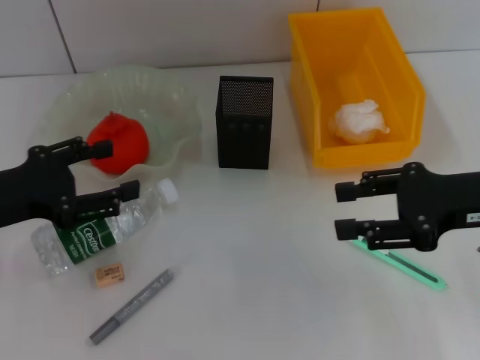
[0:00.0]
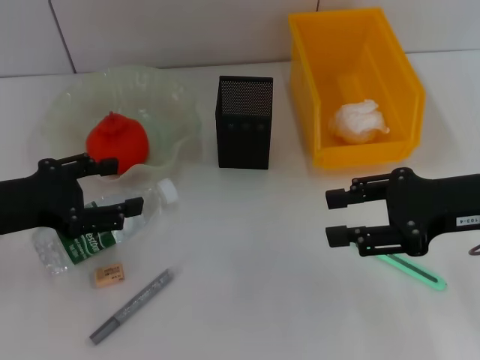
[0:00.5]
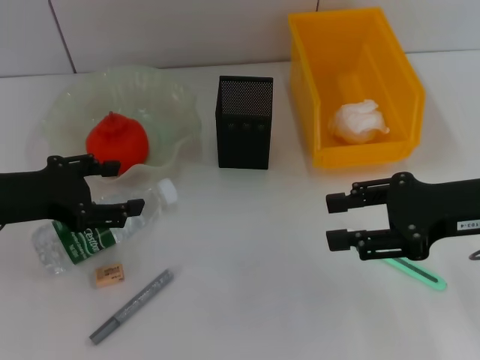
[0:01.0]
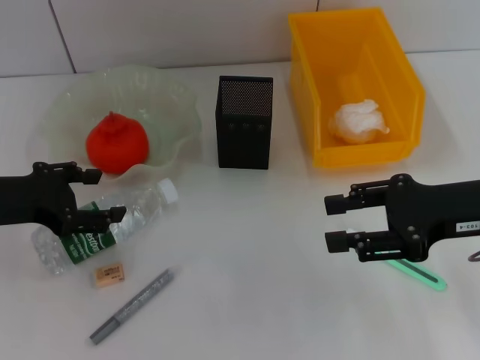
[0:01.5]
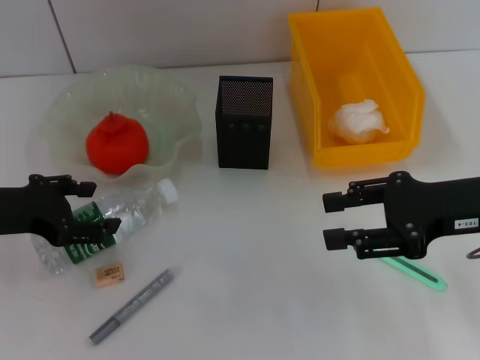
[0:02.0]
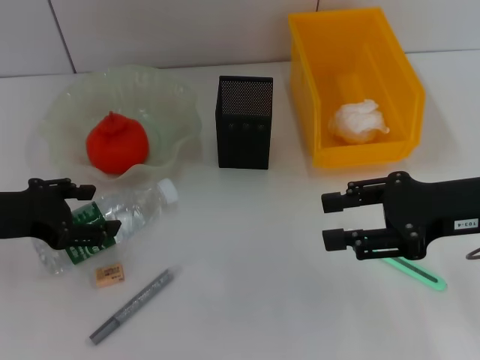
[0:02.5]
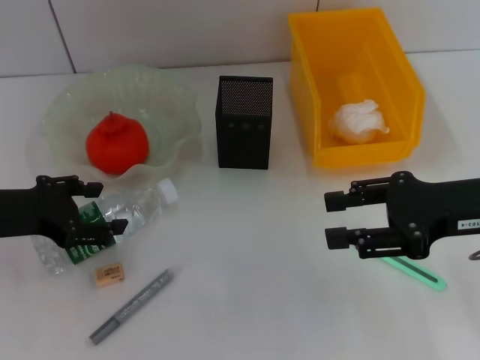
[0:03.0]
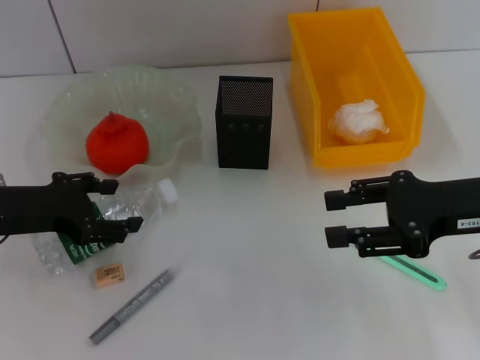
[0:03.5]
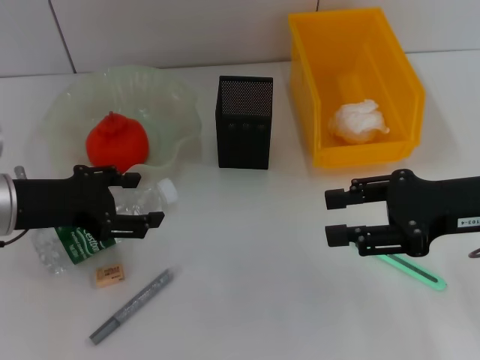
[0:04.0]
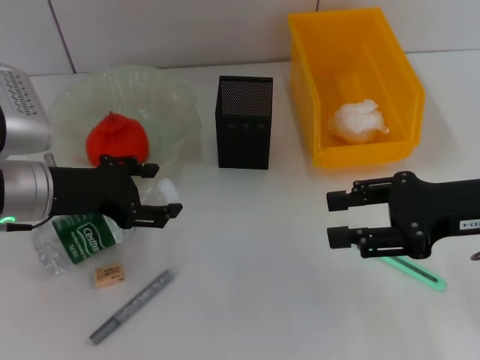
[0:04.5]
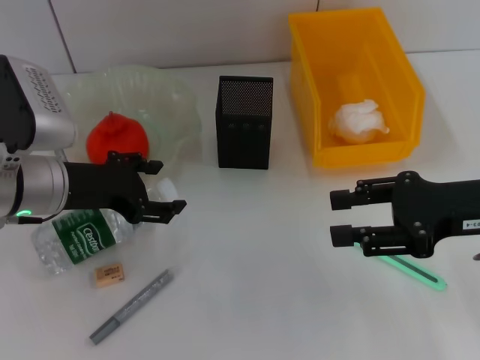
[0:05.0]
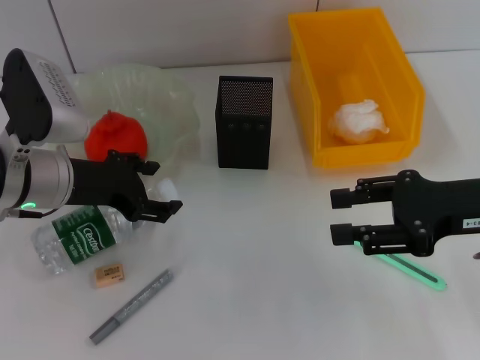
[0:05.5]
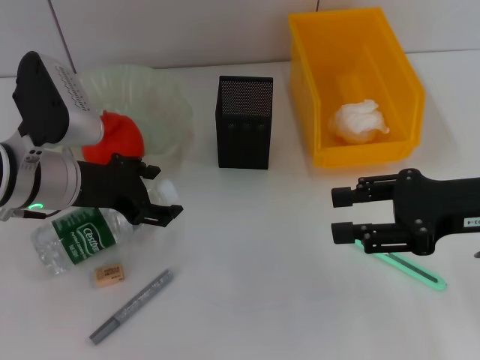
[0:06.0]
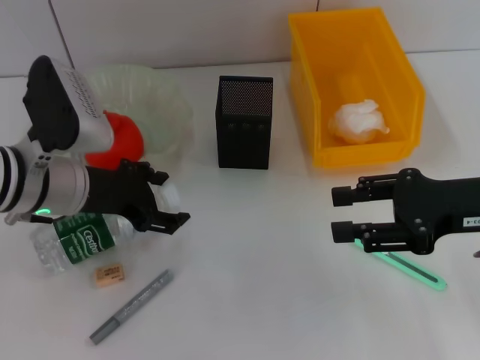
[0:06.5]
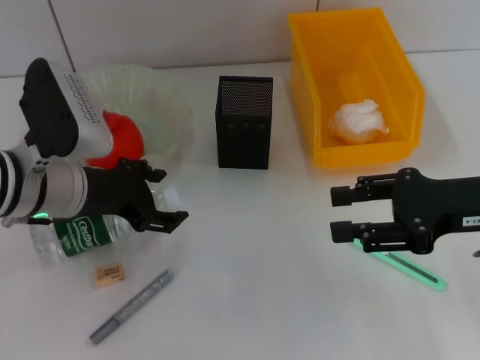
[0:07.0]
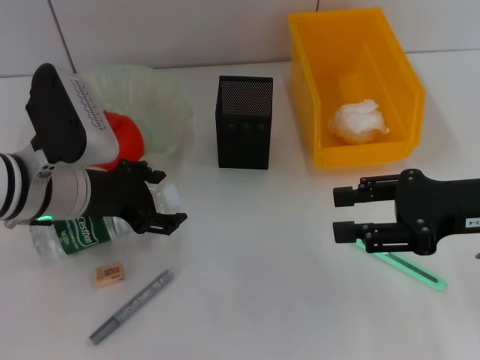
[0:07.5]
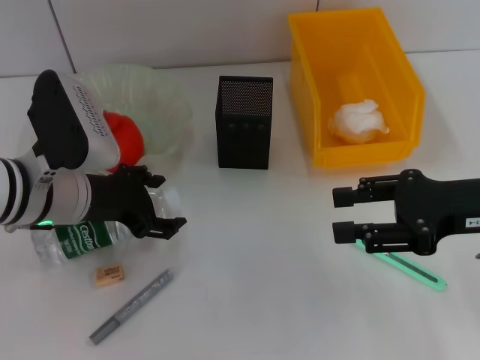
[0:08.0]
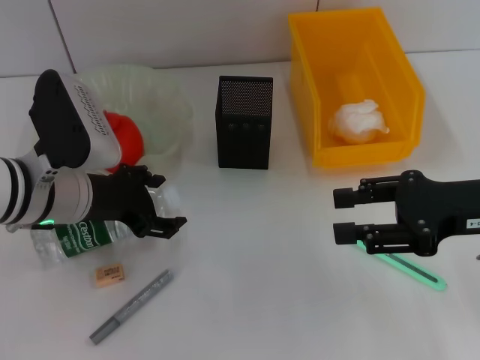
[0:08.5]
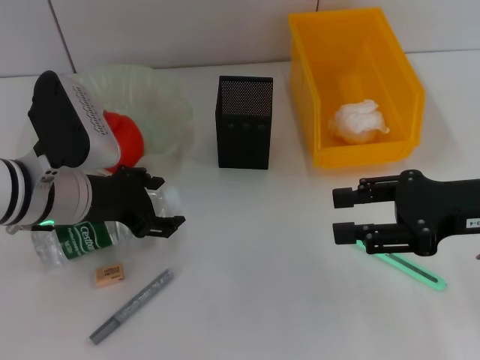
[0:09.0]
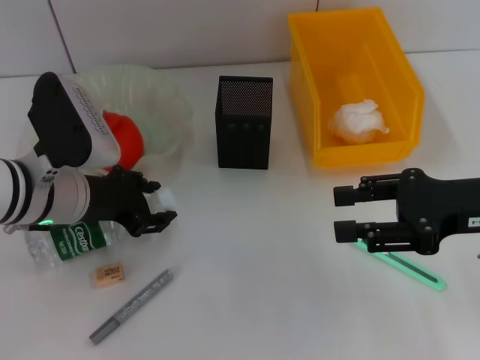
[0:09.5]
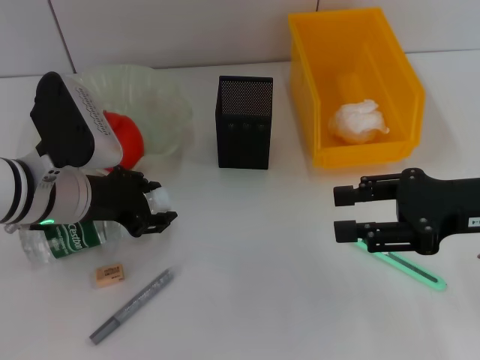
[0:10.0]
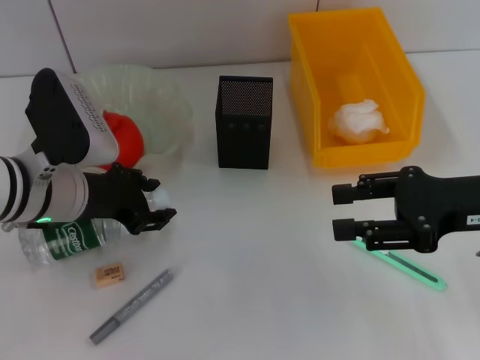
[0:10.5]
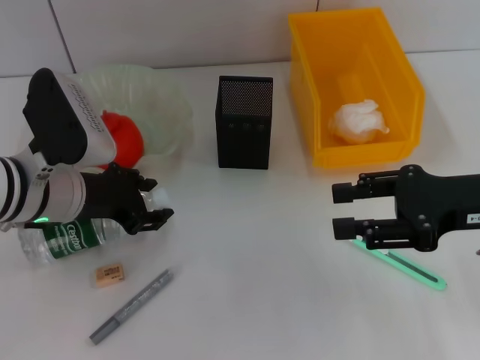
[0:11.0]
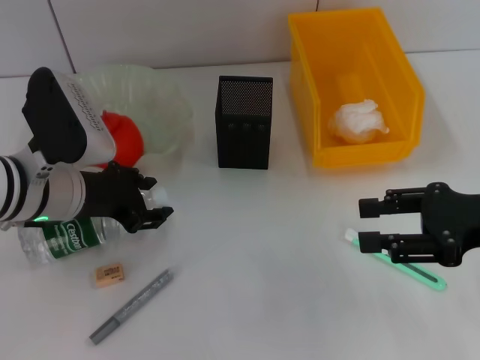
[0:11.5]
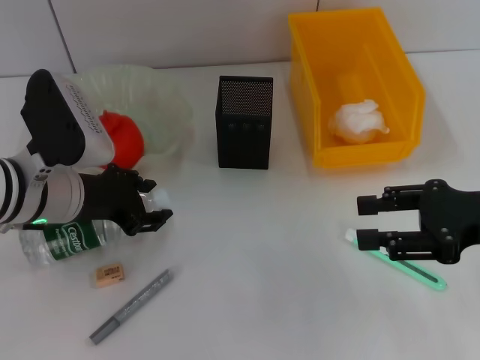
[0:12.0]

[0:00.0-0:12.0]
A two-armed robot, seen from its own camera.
Step, 0:00.0 to 0:10.0: Grab the water bottle with the left hand.
0:02.0 to 0:04.0: The grippers stay close to where they were, moving slightly.
0:04.0 to 0:06.0: The left gripper shifts some 5 cm to the right.
0:06.0 to 0:08.0: The grippers stay close to where they were, moving slightly.
0:08.0 to 0:10.0: The left gripper closes its fingers.
0:10.0 to 0:12.0: The grippers stay close to where they were, moving slightly.

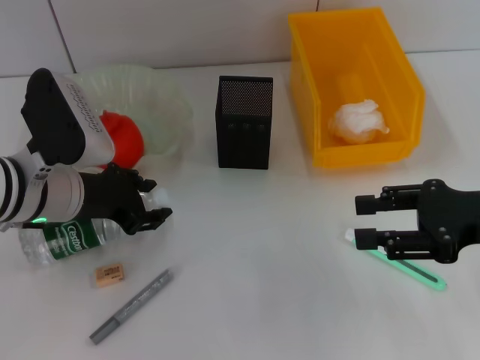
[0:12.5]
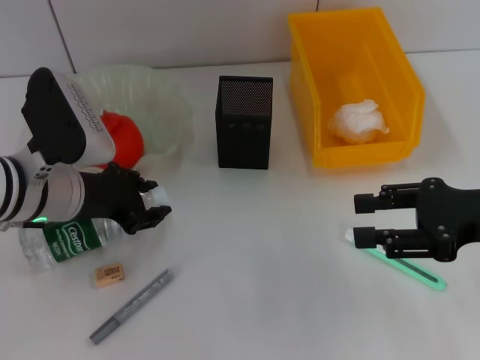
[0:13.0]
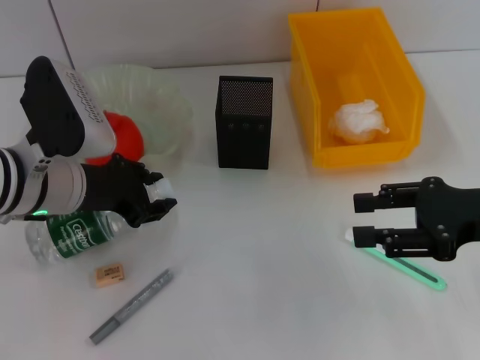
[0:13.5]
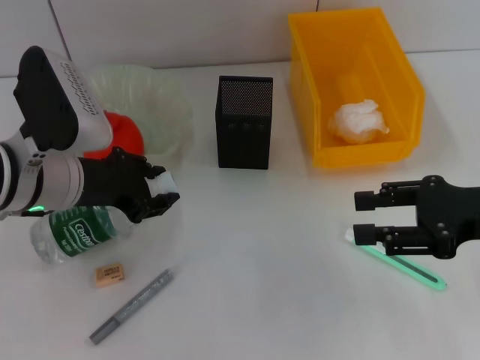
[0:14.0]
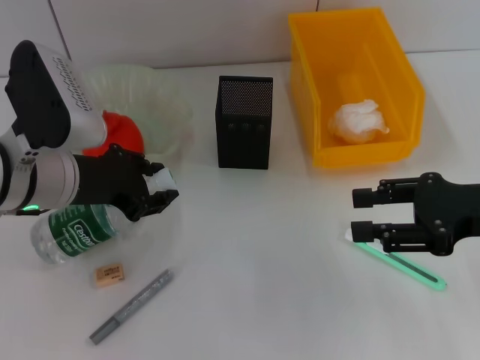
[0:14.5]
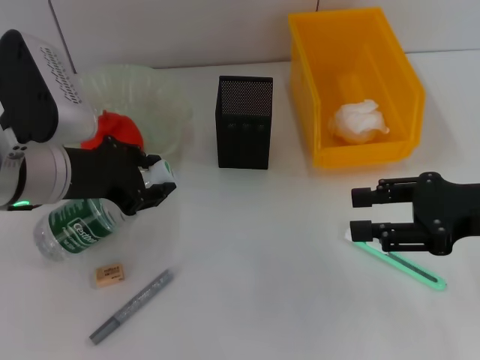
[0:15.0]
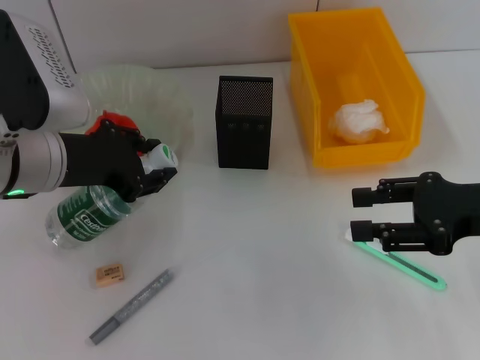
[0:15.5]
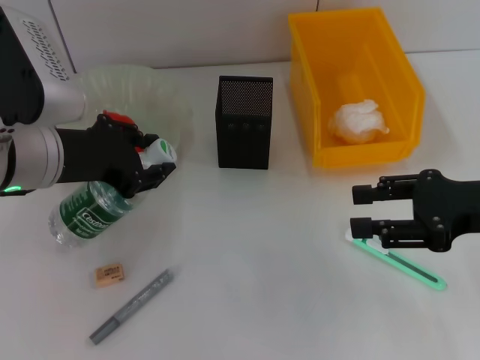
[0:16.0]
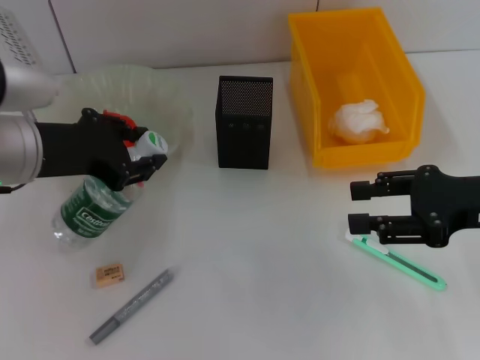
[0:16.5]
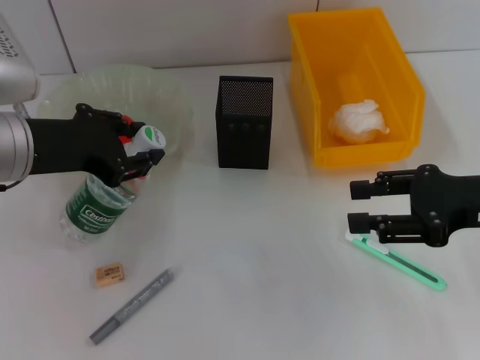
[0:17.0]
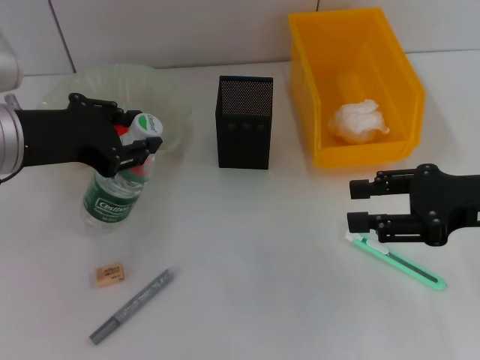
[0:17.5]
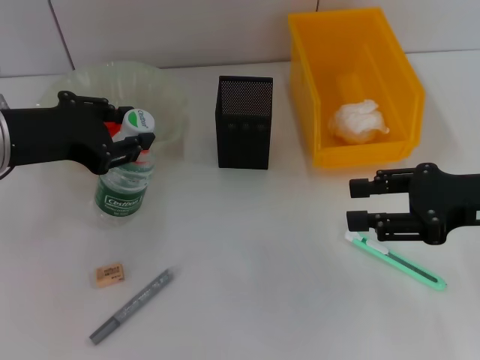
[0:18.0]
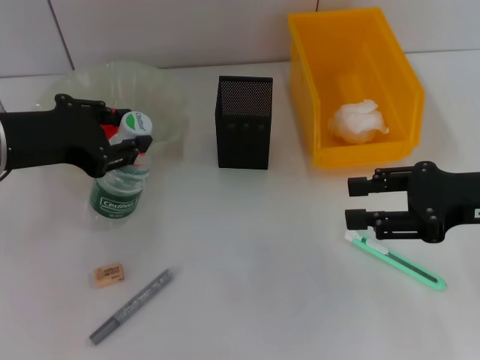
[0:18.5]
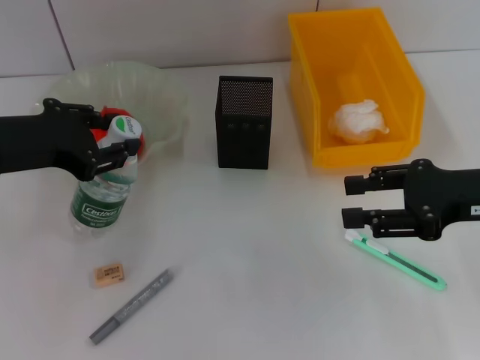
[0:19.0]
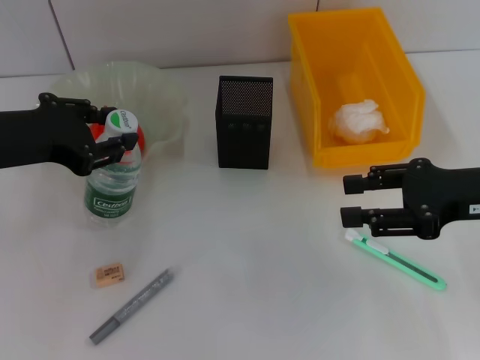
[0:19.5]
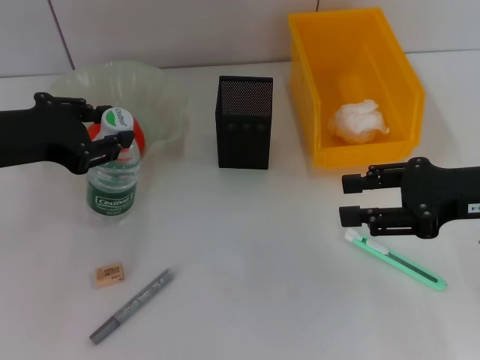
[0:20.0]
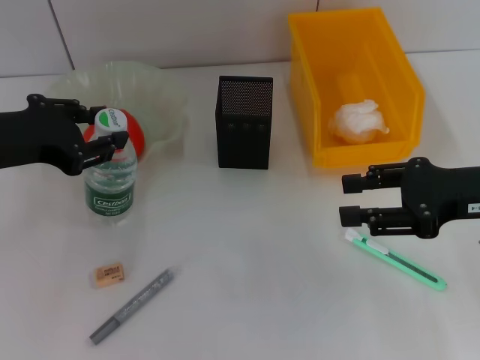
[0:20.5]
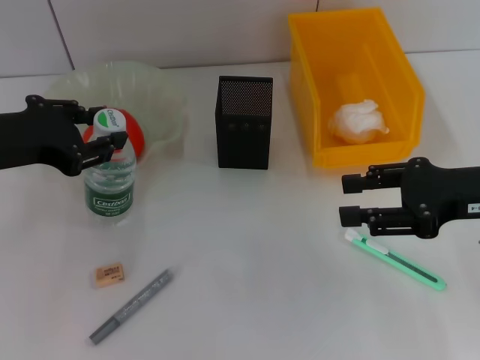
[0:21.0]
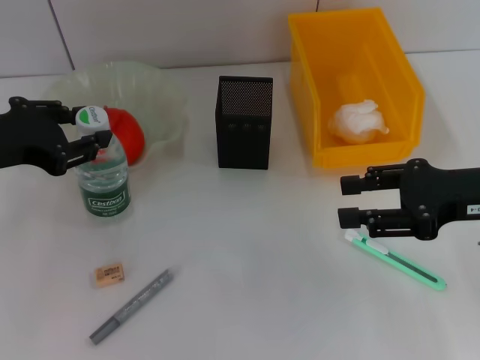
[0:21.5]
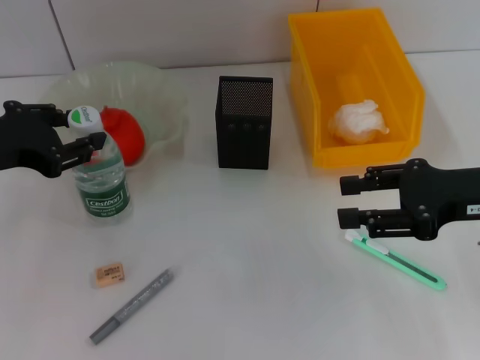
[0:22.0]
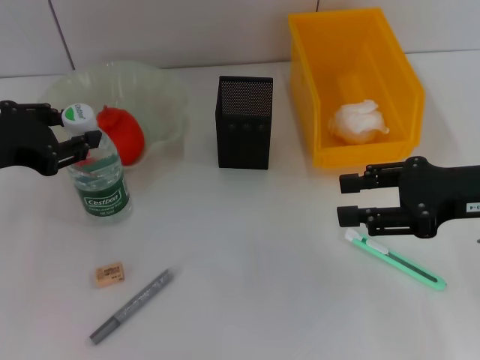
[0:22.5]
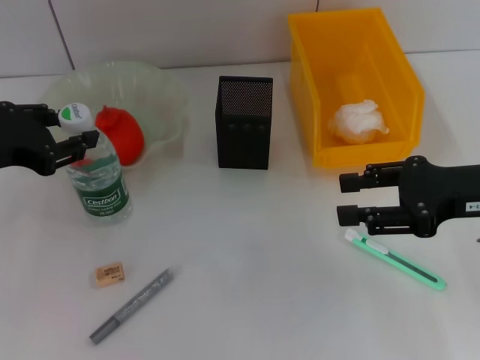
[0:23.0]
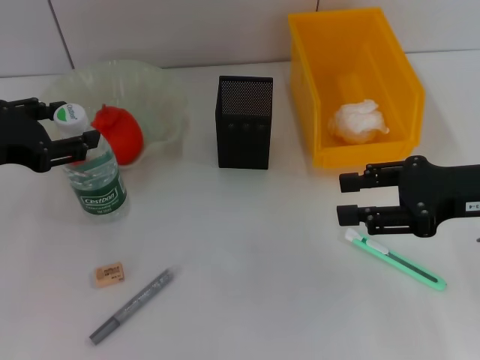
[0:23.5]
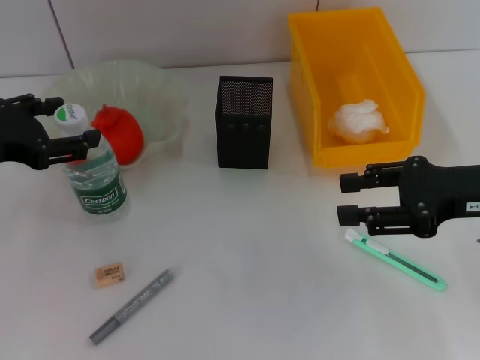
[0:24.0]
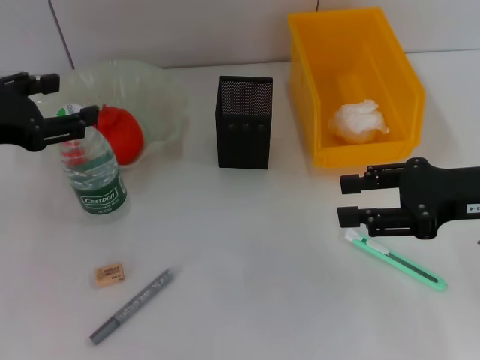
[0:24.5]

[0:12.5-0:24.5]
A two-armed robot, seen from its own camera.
0:12.5 to 0:14.5: The grippers move only a little.
0:14.5 to 0:16.5: There are only small adjustments of the grippers.
0:16.5 to 0:20.5: The grippers make only small movements.
0:20.5 to 0:22.5: The grippers move only a little.
0:22.5 to 0:24.5: The left gripper opens up.

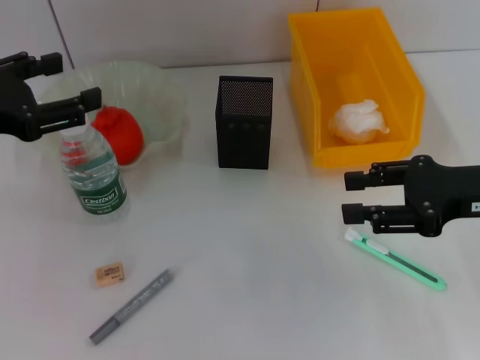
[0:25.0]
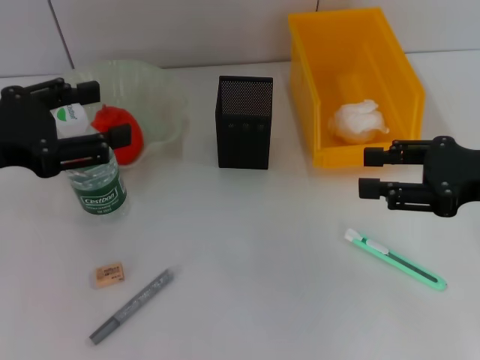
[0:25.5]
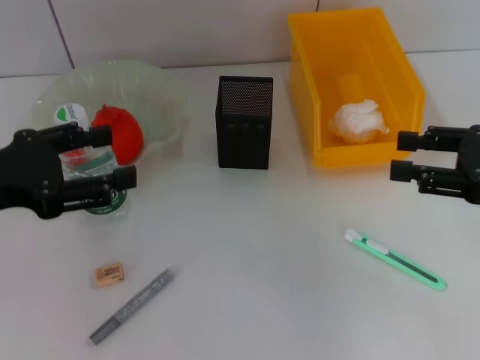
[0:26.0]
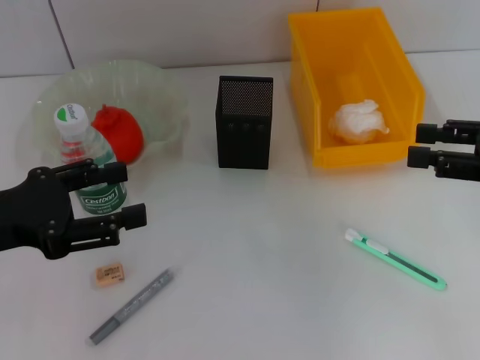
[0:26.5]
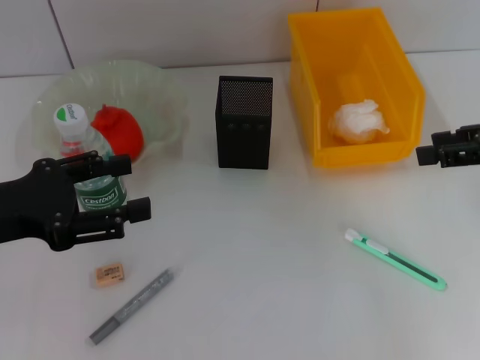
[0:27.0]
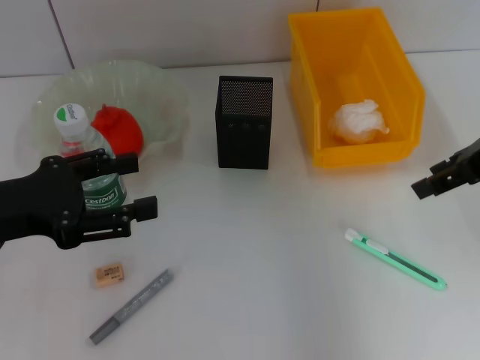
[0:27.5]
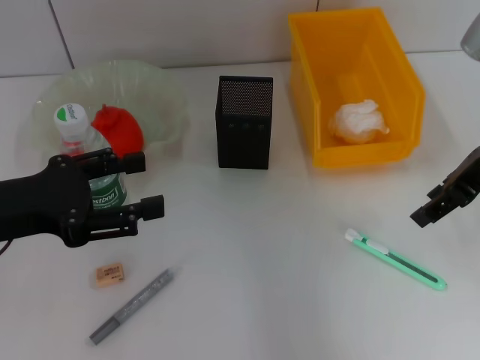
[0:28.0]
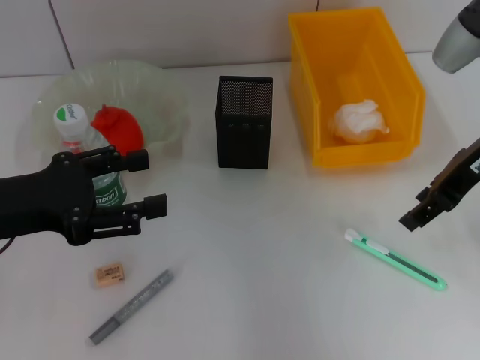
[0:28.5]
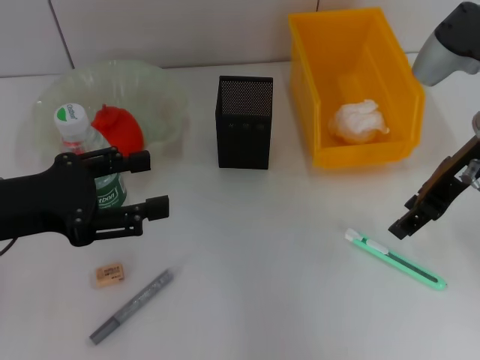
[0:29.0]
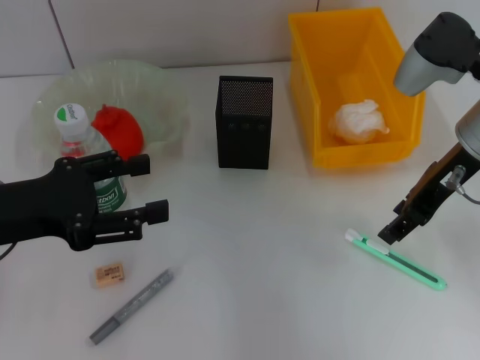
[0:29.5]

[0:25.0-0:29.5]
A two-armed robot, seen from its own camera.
0:25.0 to 0:27.0: The left gripper ends up roughly 5 cm from where it was. Meanwhile the right gripper is displaced upward and to the right by some 10 cm.
0:27.0 to 0:29.5: The right gripper heads to the left and forward, covering about 10 cm.
